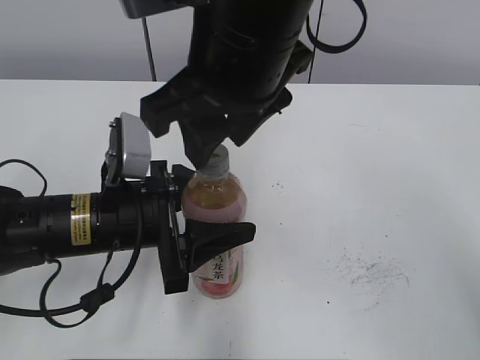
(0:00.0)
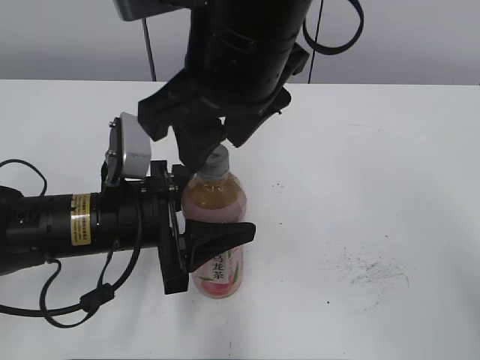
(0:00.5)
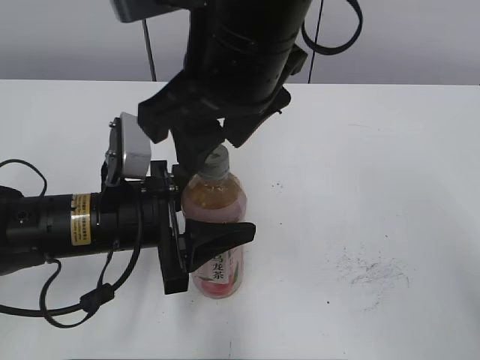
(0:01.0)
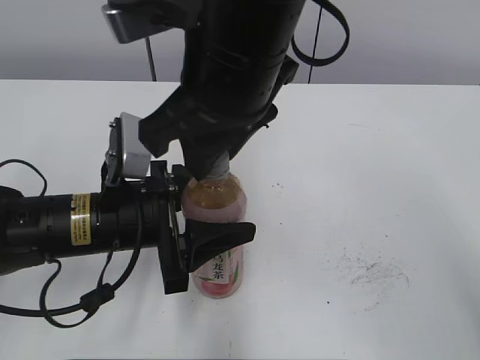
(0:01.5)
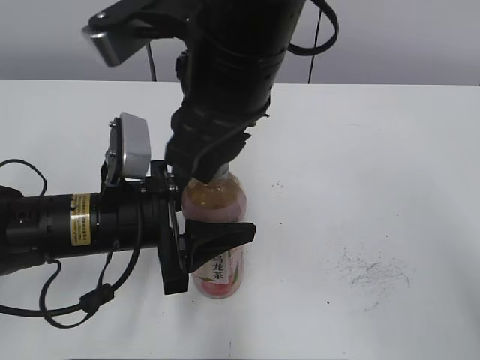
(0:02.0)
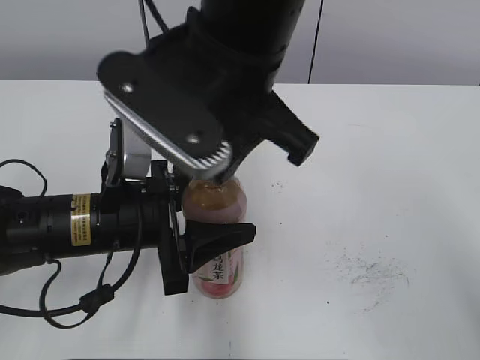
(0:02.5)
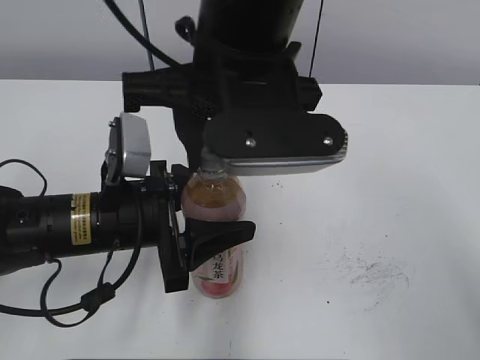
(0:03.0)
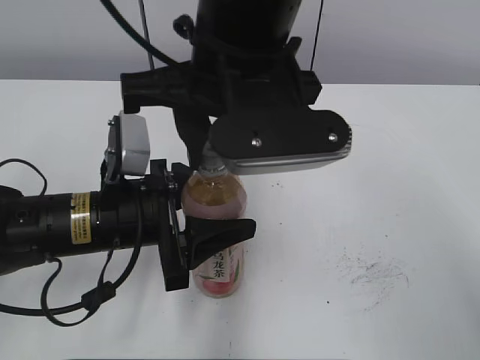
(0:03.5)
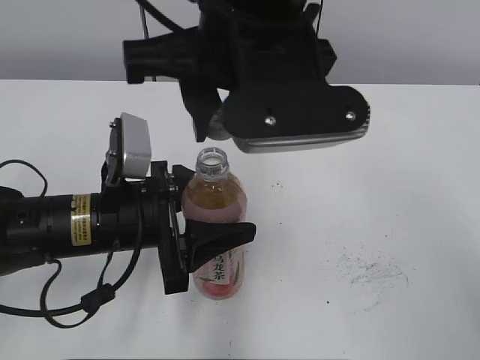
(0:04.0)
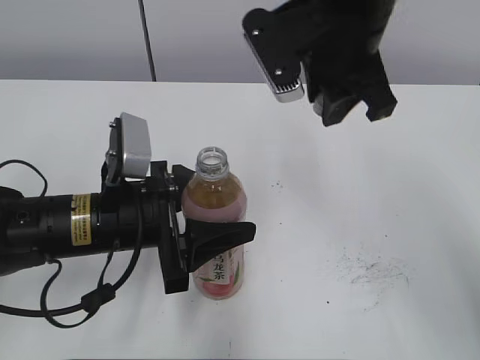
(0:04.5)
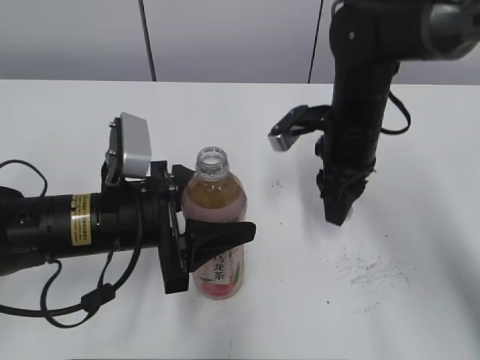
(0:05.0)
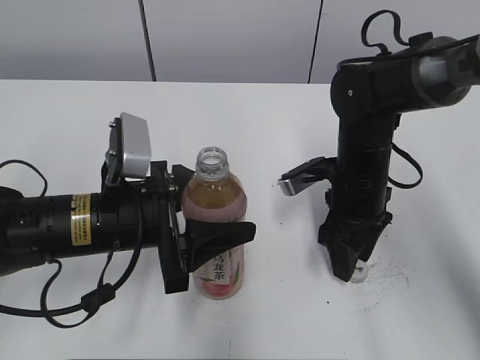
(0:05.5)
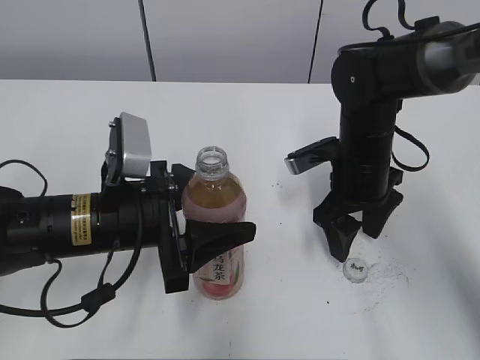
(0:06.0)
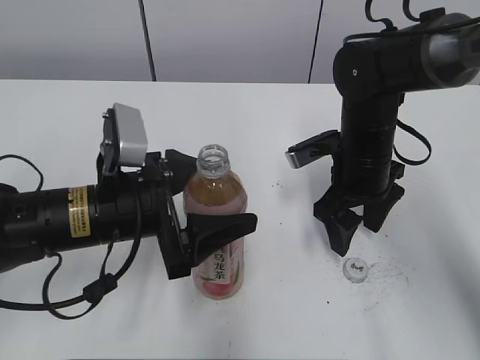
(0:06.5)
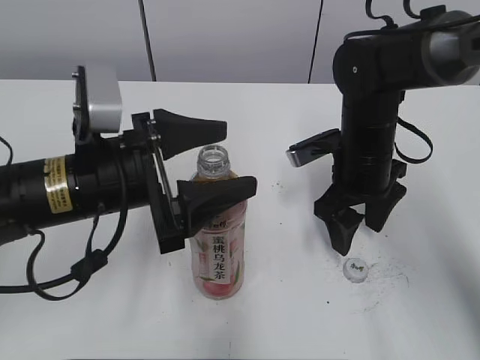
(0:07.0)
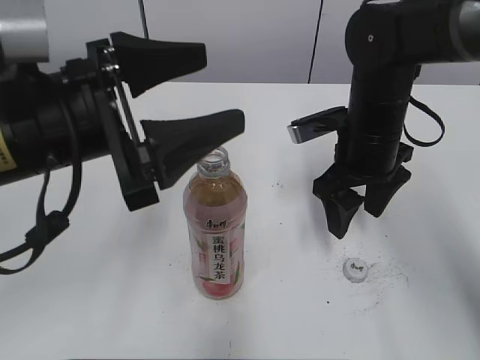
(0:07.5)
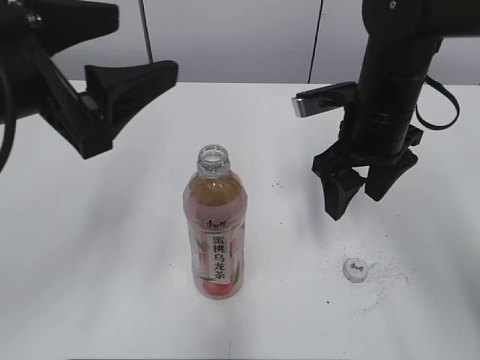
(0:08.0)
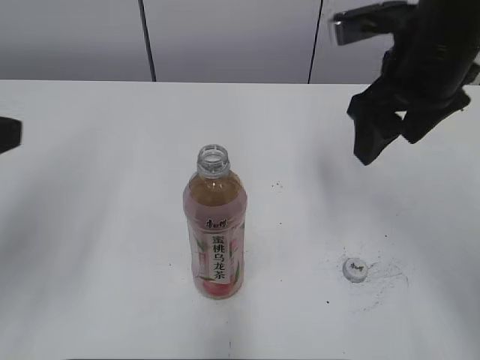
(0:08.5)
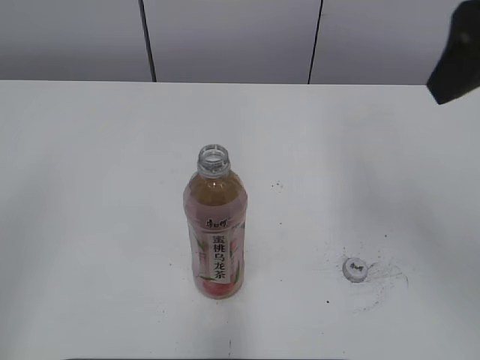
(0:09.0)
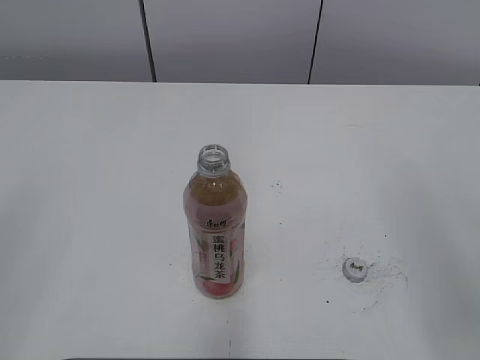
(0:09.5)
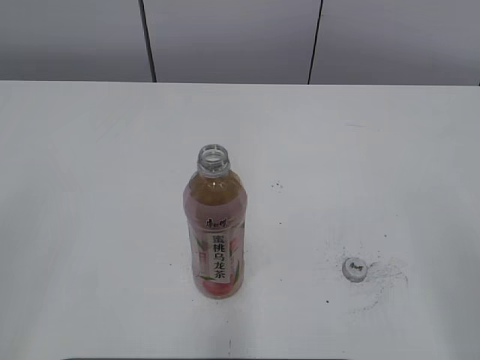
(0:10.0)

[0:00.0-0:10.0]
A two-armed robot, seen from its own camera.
Step, 0:04.0 to 0:05.5: Place the bottle cap on the right.
0:00.0 to 0:02.0: The right gripper closes.
0:04.0 to 0:06.0: The right gripper goes some 25 cm downward, to the right and forward, and opens.
0:06.0 to 0:08.0: The left gripper shifts roughly 15 cm upward; the right gripper moves upward, about 10 cm.
0:08.0 to 0:10.0: The left gripper travels backward and to the left by approximately 25 cm; the right gripper goes approximately 35 cm backward and to the right.

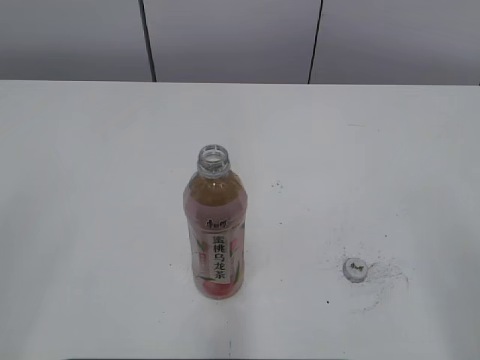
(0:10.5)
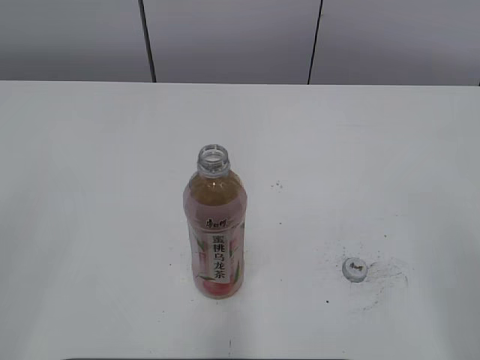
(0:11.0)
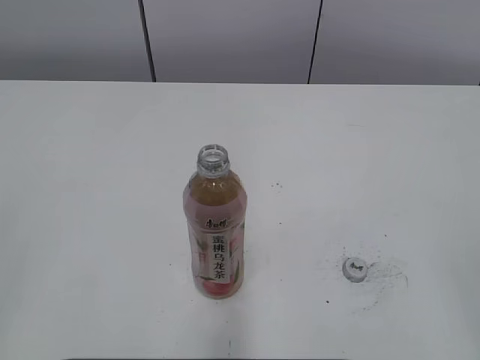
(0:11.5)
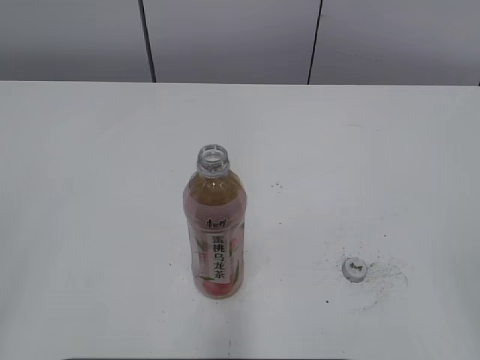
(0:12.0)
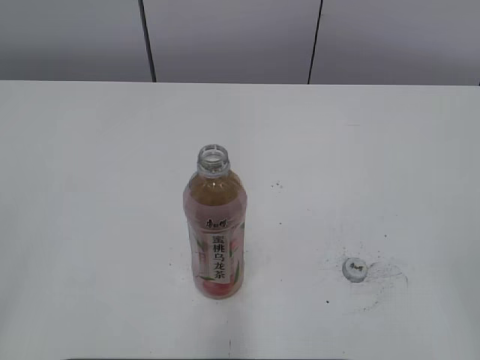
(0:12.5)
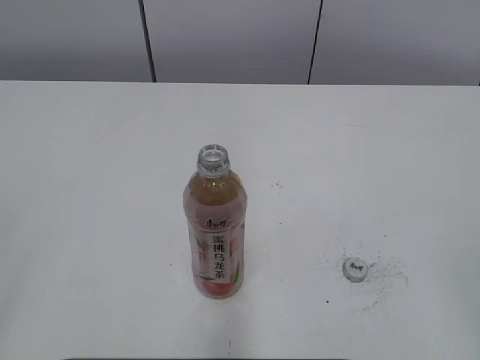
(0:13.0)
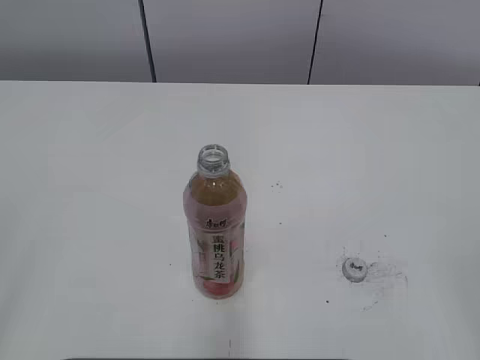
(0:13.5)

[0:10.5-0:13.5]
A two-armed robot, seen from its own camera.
0:12.0 to 0:13.5: Neither gripper changes place.

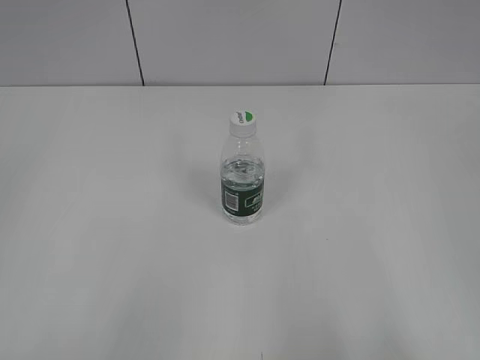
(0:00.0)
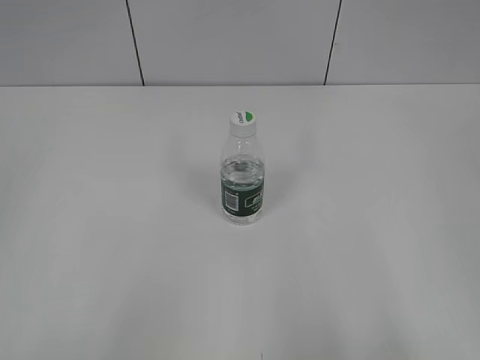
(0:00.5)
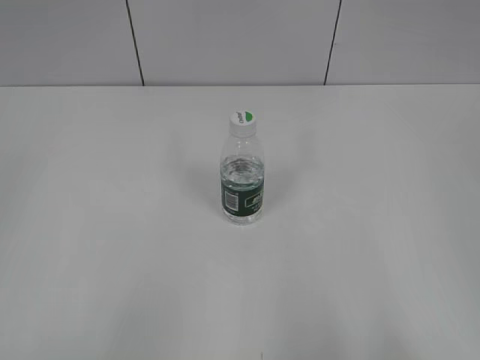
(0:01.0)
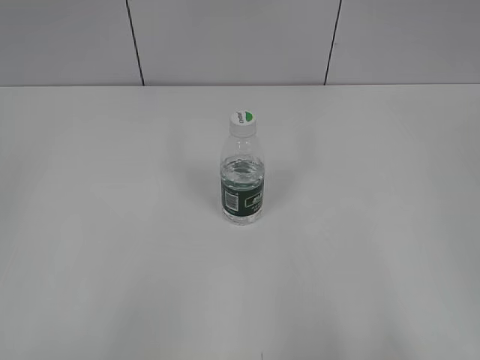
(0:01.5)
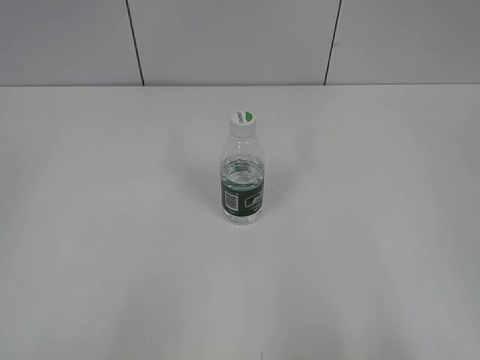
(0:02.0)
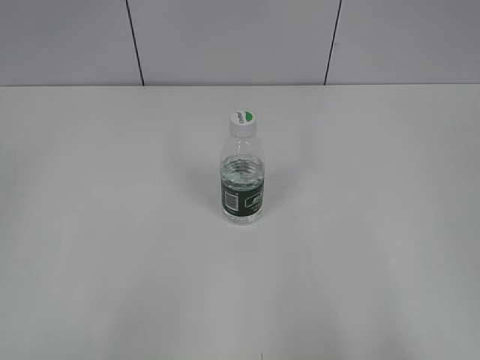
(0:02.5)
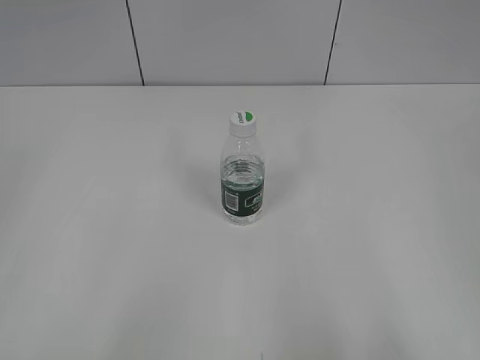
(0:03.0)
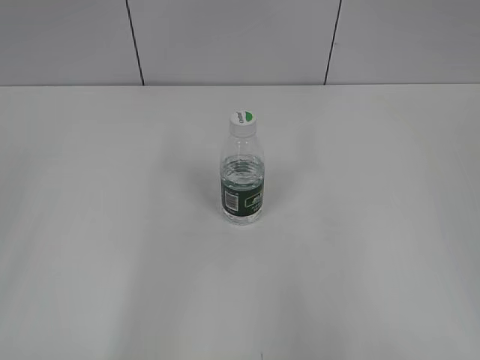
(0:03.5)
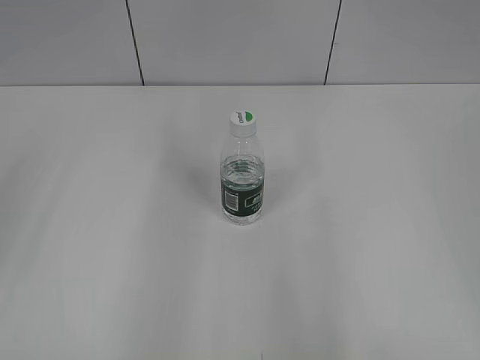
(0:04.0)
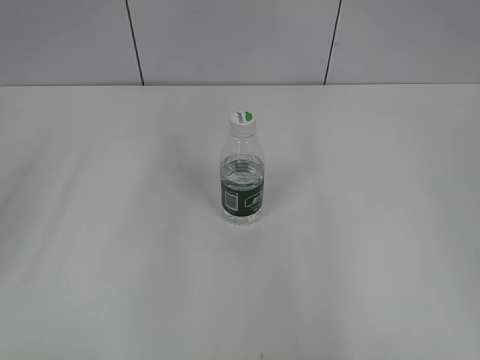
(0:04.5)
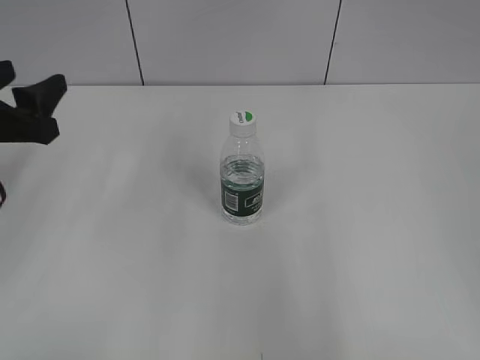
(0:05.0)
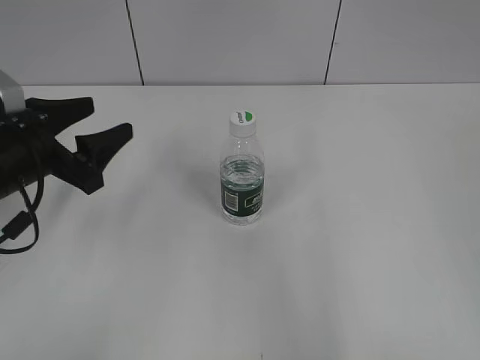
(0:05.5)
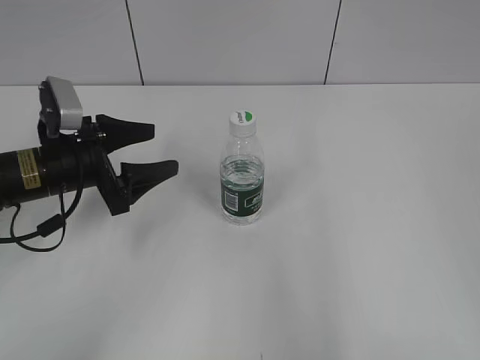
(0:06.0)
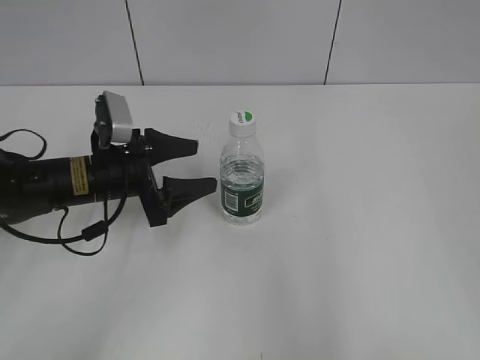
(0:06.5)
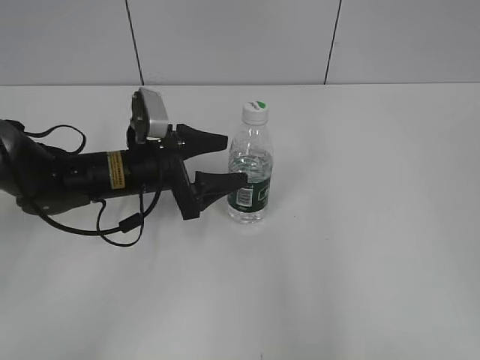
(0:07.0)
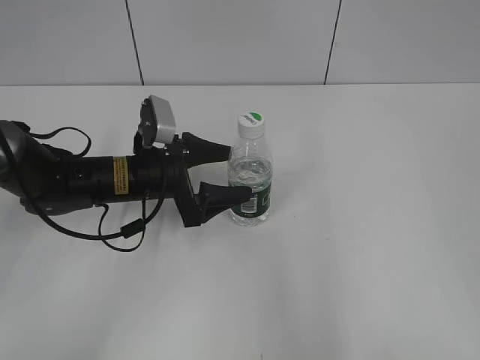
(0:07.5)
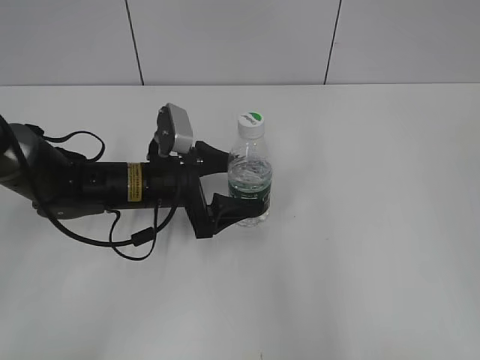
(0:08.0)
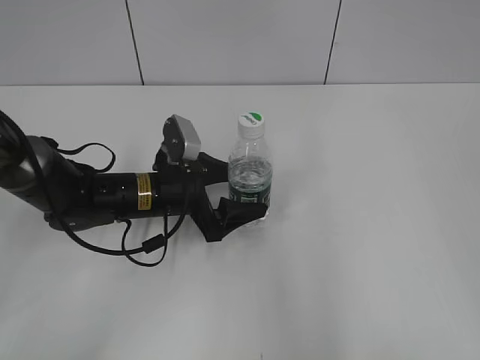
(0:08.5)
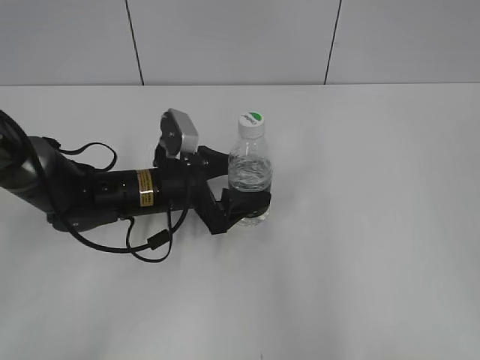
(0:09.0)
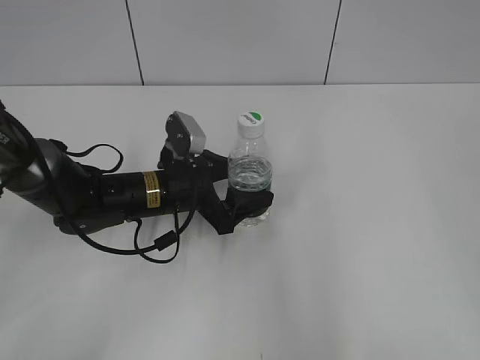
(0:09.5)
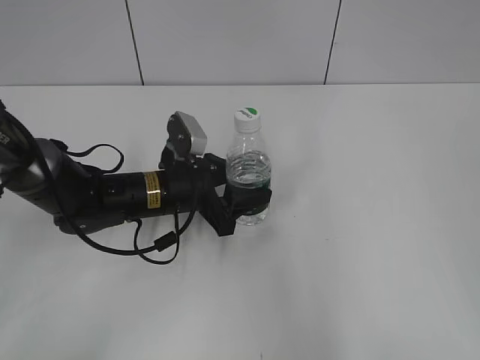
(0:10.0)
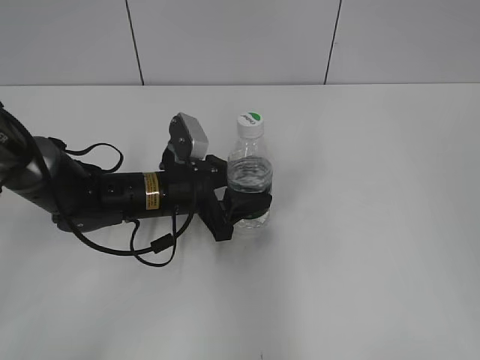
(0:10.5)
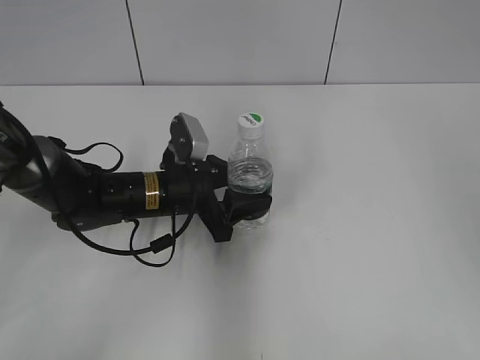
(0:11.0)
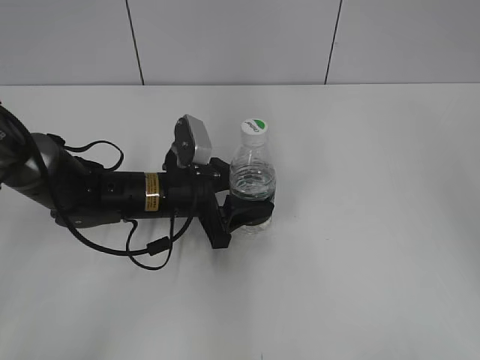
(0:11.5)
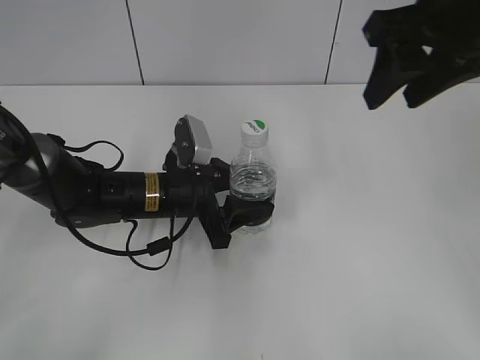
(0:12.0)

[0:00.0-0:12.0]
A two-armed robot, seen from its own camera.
Step, 0:00.0 to 0:10.5: Grasp the bottle and move it to the center of the table with the left gripper.
0:04.0 to 0:06.0: The left gripper moves downward, forward and to the right, roughly 25 cm.
0:06.0 to 0:08.0: The left gripper is displaced to the right by approximately 10 cm.
0:08.0 to 0:10.0: The left gripper closes.
0:10.0 to 0:12.0: The right gripper travels forward and to the left by about 30 cm, and closes its fingers.

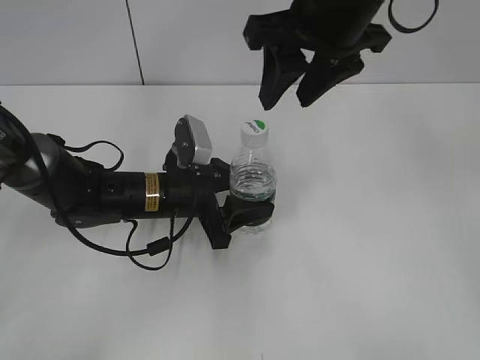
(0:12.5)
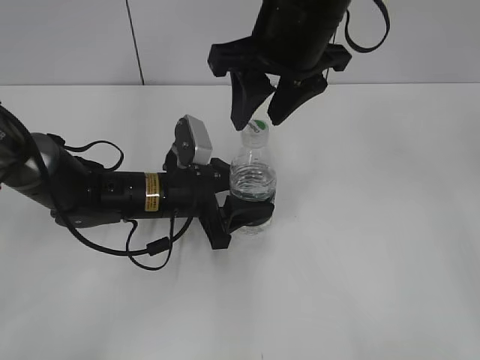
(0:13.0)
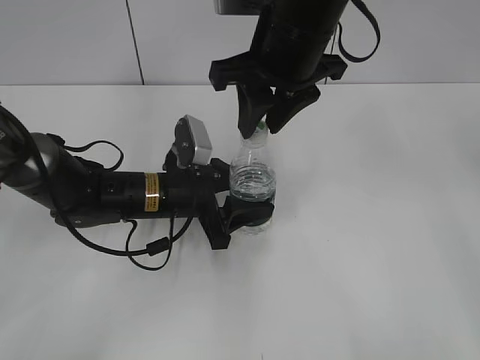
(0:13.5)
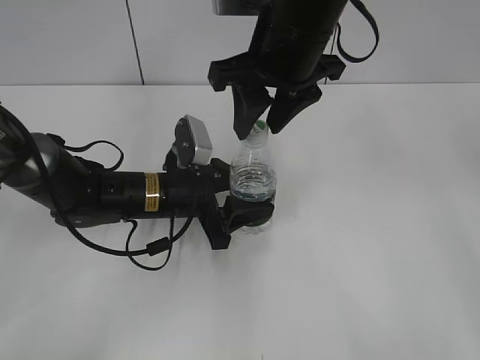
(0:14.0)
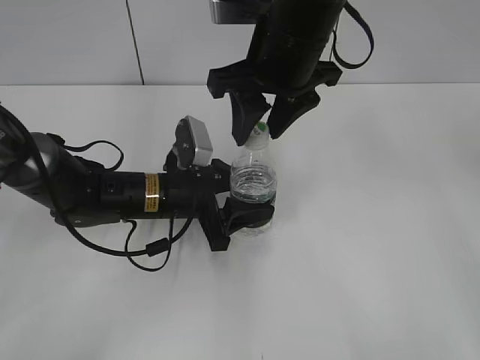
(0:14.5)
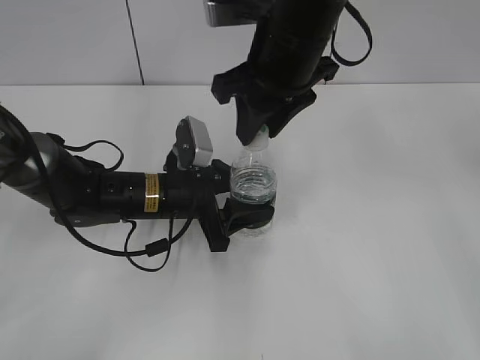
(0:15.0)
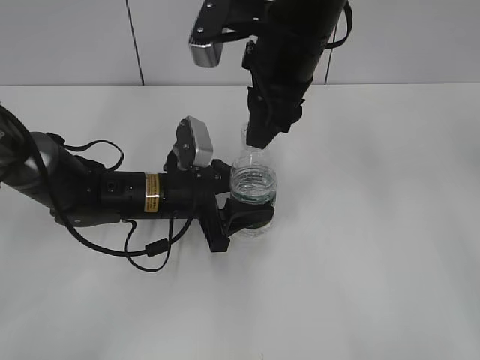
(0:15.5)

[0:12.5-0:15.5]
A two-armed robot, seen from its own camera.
0:12.5 to 0:14.0: The right gripper moves about 5 cm.
